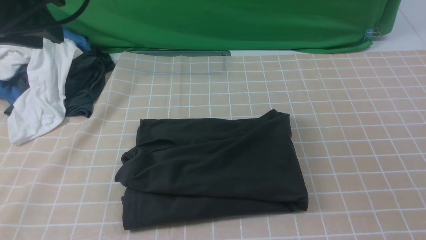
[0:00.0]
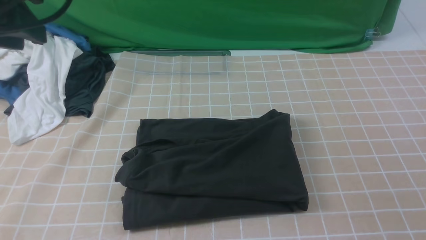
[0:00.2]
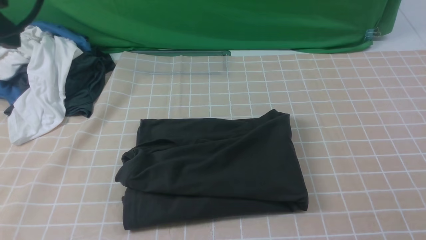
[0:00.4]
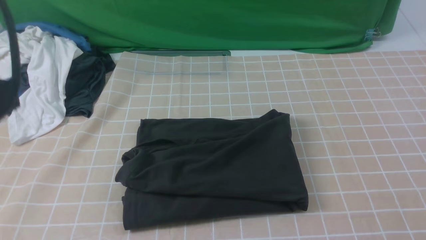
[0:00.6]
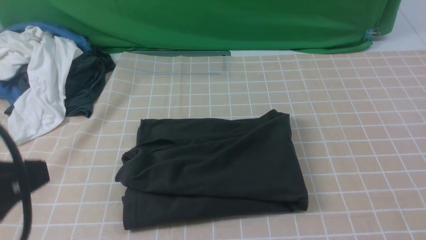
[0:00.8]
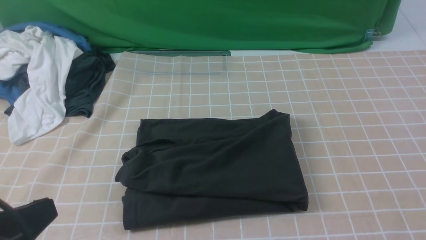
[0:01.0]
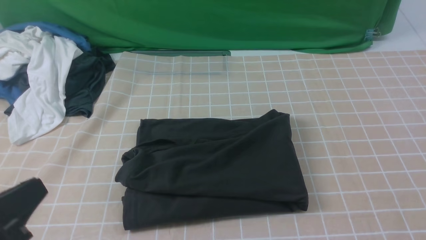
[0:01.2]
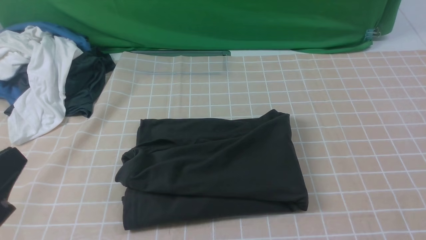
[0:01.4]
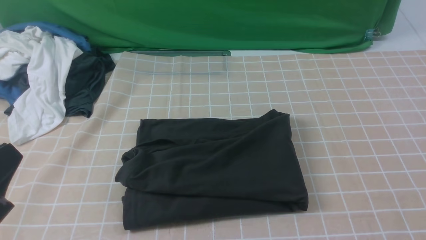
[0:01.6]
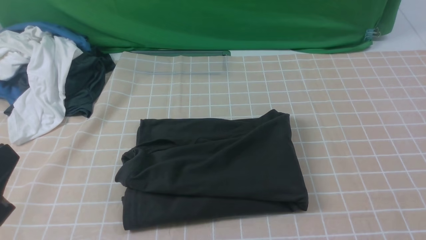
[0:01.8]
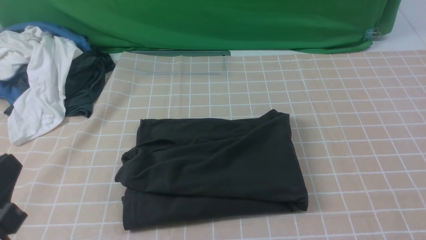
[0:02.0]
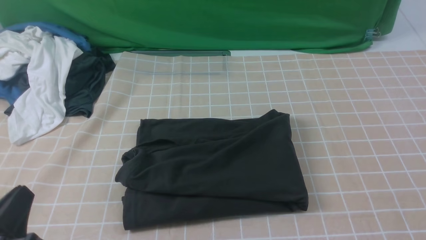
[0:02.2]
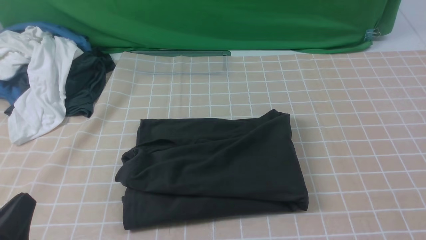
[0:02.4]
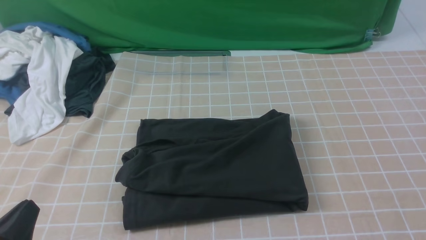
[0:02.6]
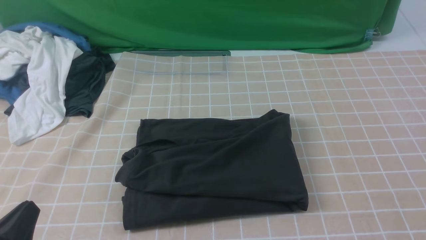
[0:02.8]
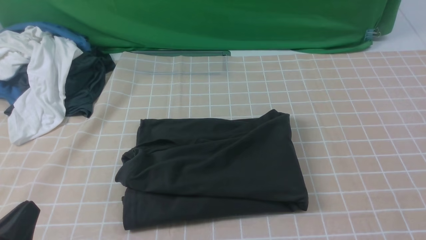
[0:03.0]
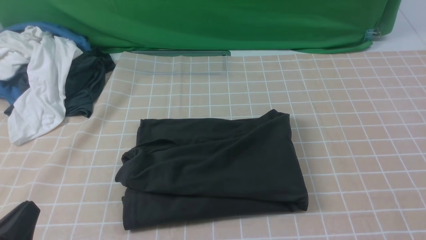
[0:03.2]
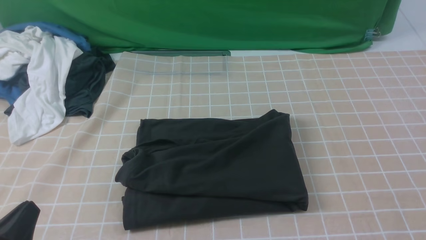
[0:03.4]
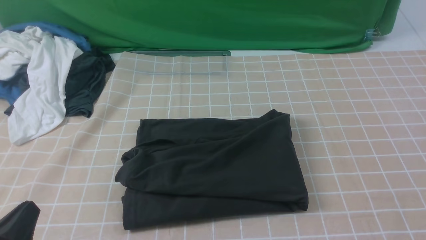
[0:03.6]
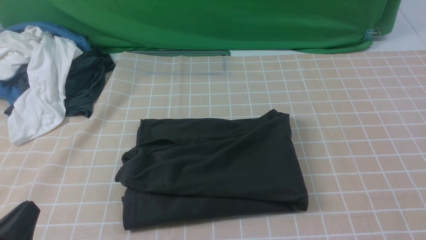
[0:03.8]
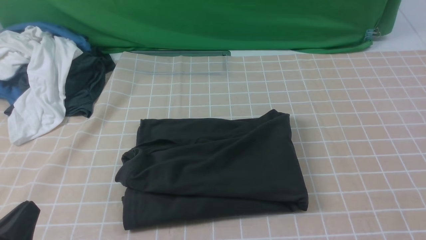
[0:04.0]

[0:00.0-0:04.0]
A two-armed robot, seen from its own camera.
0:00.0 to 0:01.4: The left gripper heads backward and downward, covering roughly 25 cm, and closes its fingers.
0:01.4 to 0:02.6: The left gripper moves downward, about 10 cm.
0:02.6 to 0:04.0: Both grippers stay put.
